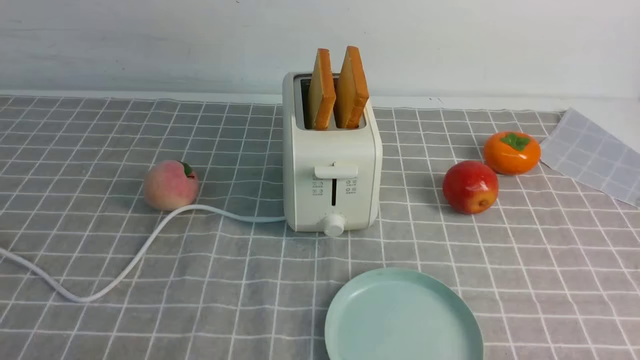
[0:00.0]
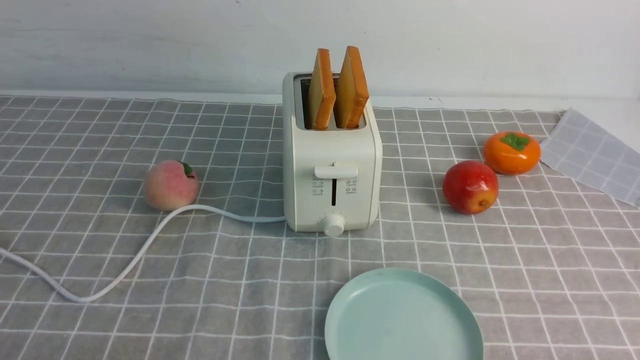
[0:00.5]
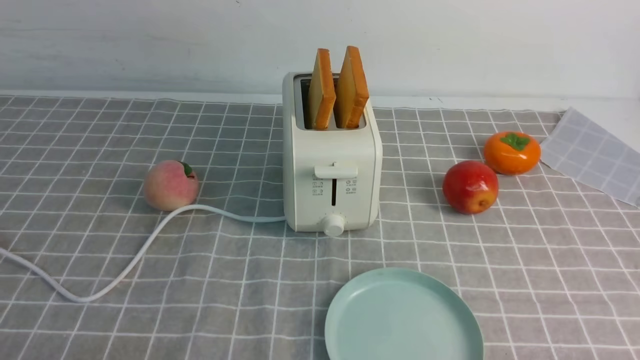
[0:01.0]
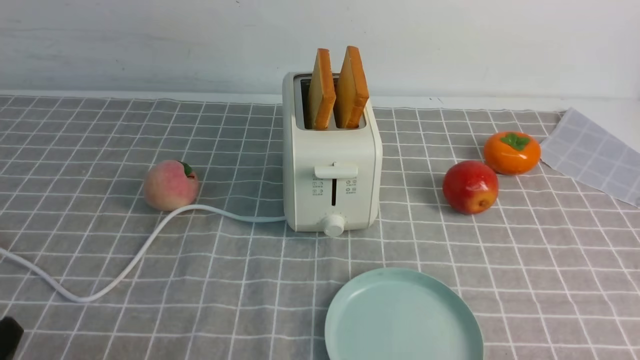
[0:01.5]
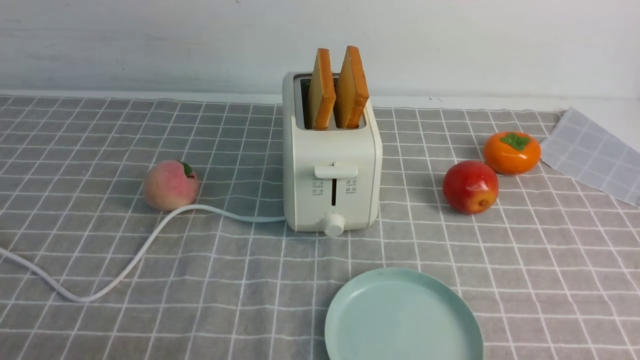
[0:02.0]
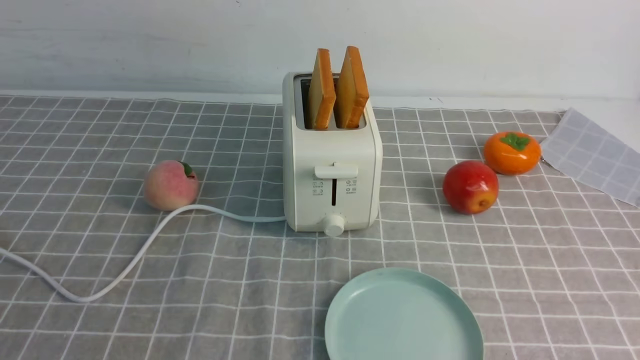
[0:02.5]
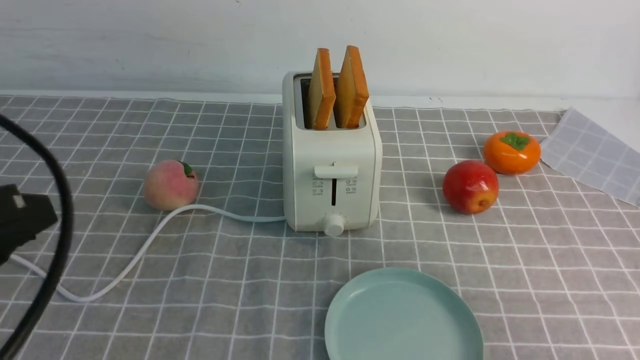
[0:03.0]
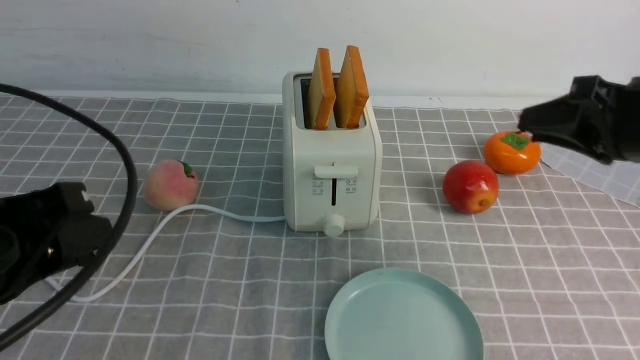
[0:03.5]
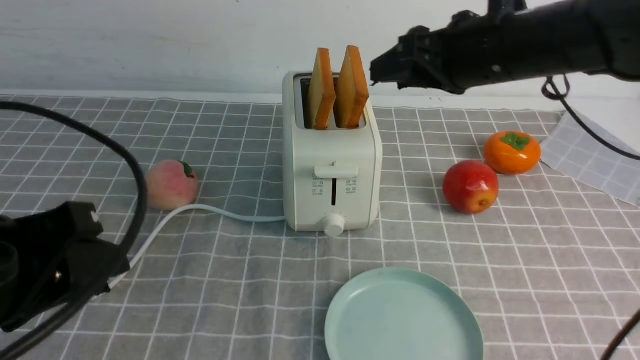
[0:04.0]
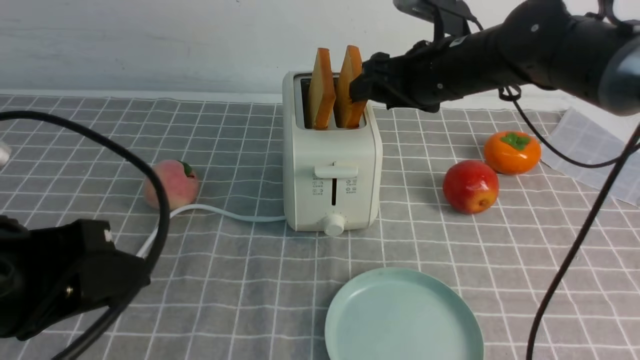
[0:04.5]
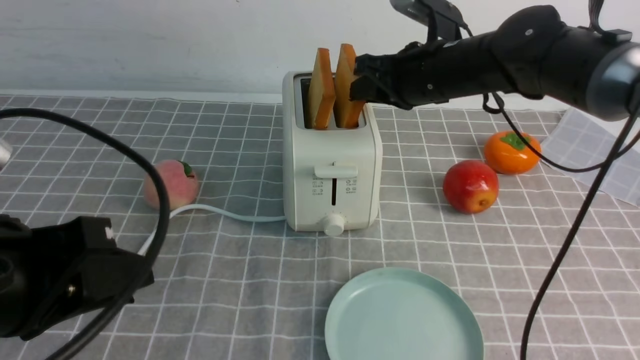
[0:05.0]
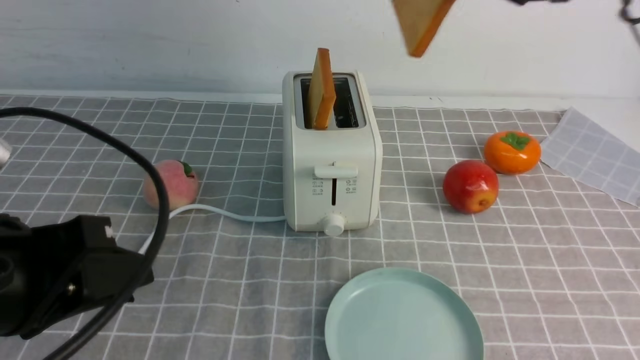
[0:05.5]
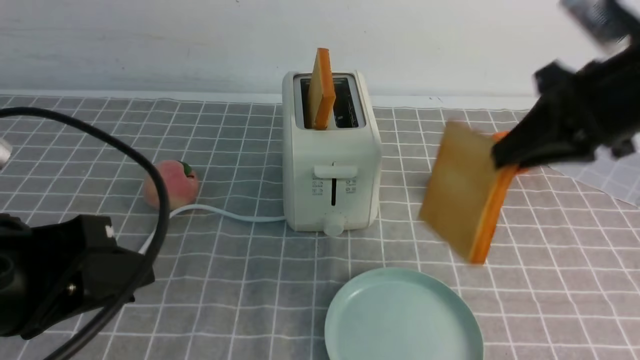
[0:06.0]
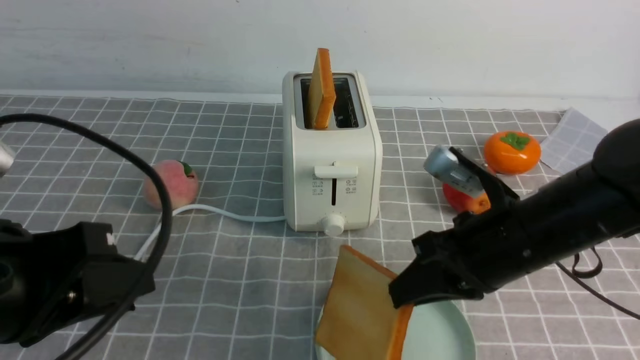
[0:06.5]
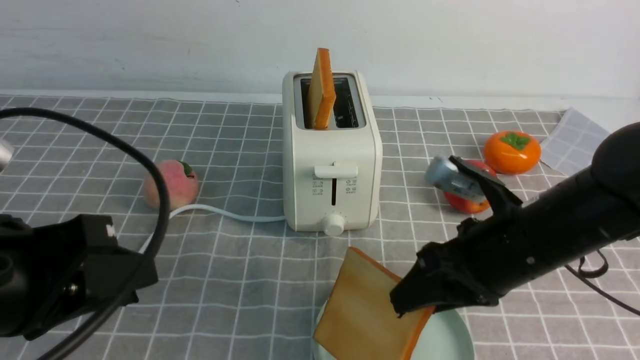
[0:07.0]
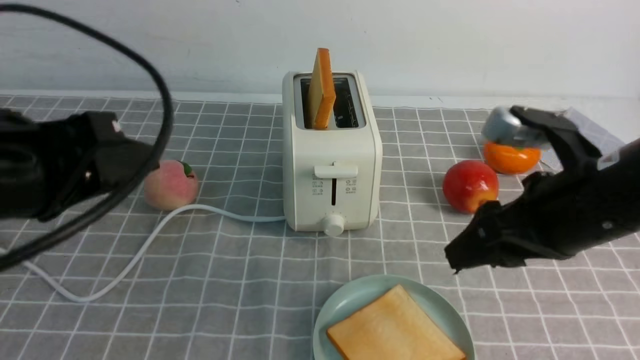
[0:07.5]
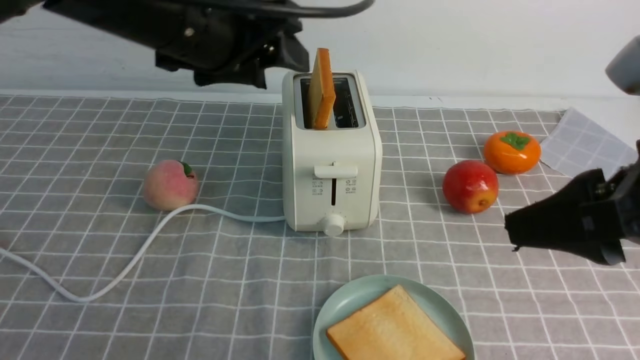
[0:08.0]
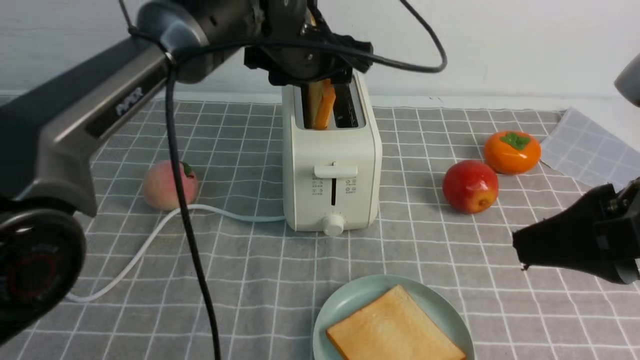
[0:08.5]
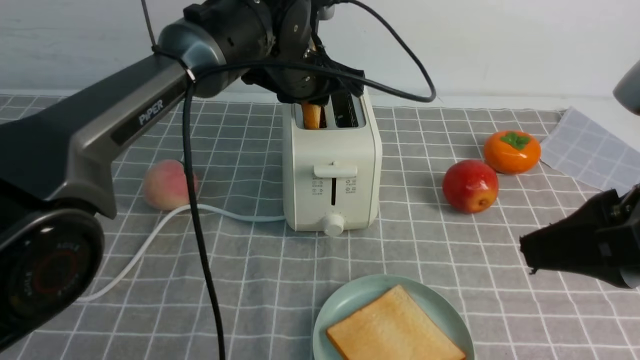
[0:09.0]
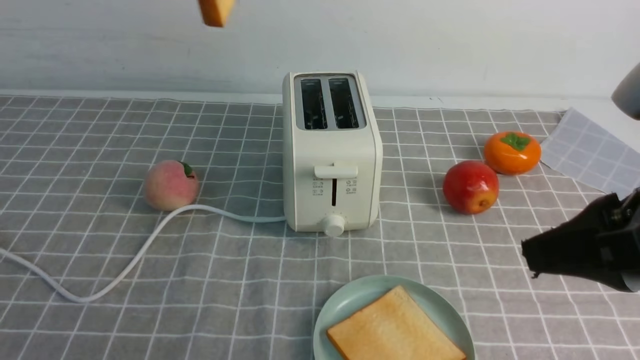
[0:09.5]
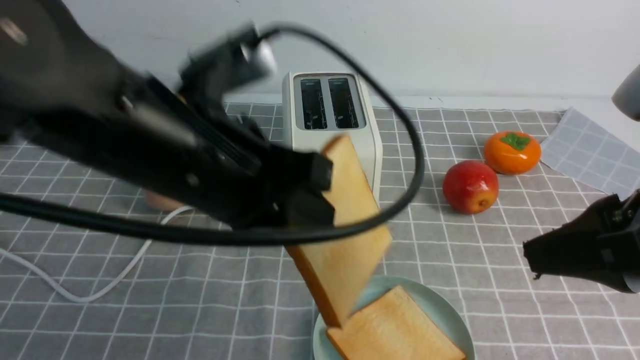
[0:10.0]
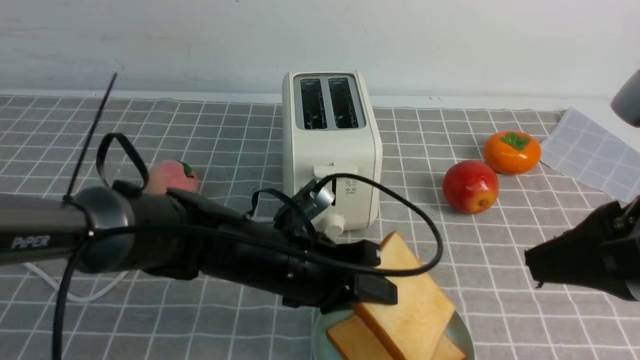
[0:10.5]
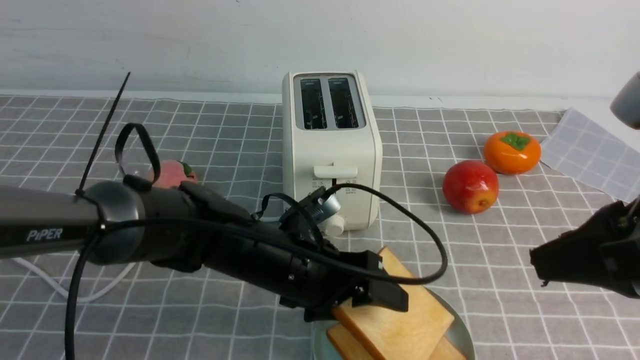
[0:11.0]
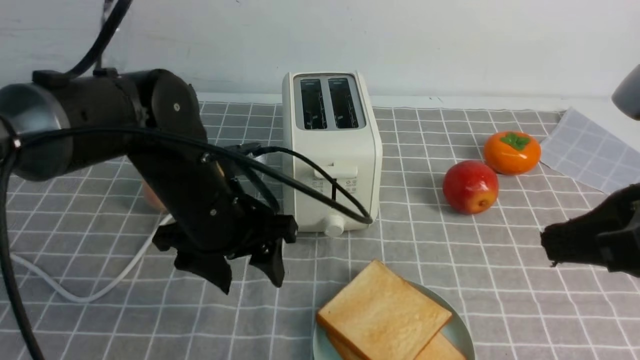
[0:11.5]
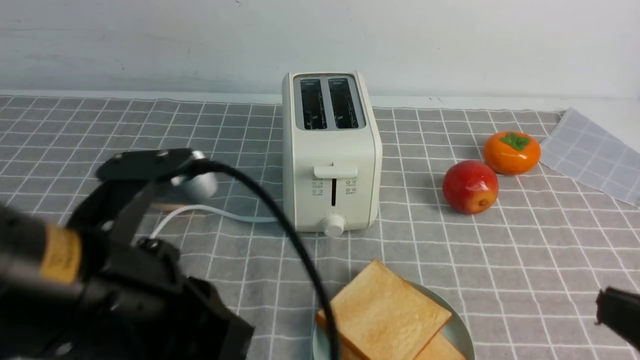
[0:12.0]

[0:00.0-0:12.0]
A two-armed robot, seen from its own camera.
Task of the whole recording: take toasted bread from bread machine on grey coffee table place on plate.
Step, 0:00.0 to 0:05.0: use the right arm to take out a slice of bread.
Step, 0:06.0 to 0:07.5: use the right arm to put a slice of bread into the plate.
Step, 0:08.0 to 0:09.0: use the left arm to take out a slice of bread.
Step, 0:09.5 to 0:11.0: use the left arm to put a slice of bread into the empty plate.
0:02.0 to 0:04.0: The left gripper heads forward and upward, covering about 15 cm; the right gripper travels forward and to the left by roughly 35 cm.
0:04.0 to 0:06.0: The right gripper is displaced backward and to the right by approximately 10 cm, and closes up.
0:06.0 to 0:08.0: The left gripper moves forward and to the right, approximately 20 cm, and opens; the right gripper travels backward by some 15 cm, and opens its fingers.
0:08.0 to 0:10.0: The left gripper travels backward and downward by approximately 10 cm, and closes up.
0:10.0 to 0:12.0: The left gripper goes about 10 cm backward and to the left, reaches some 15 cm downward, then returns, and opens, then closes again. The right gripper travels downward and backward by some 10 cm, and closes up.

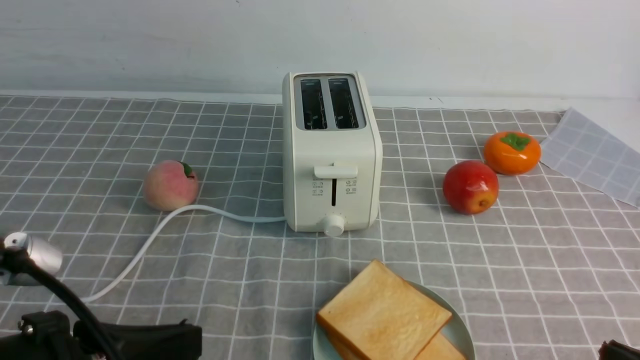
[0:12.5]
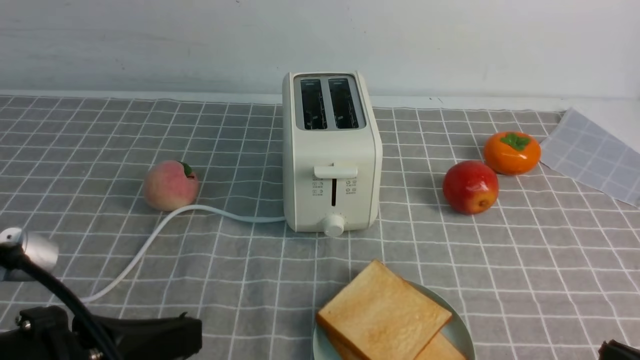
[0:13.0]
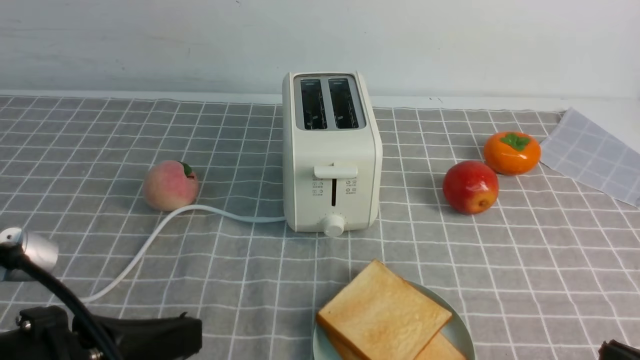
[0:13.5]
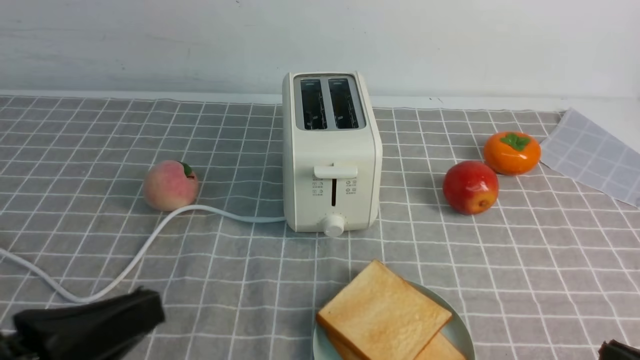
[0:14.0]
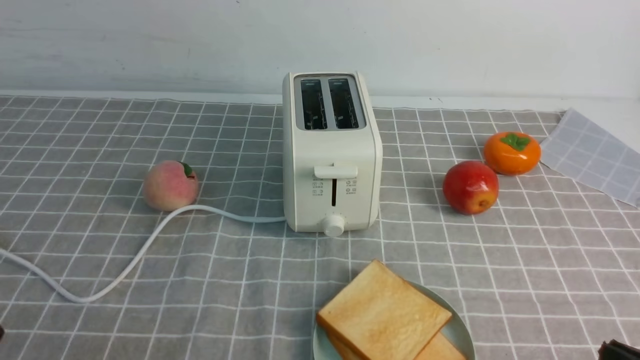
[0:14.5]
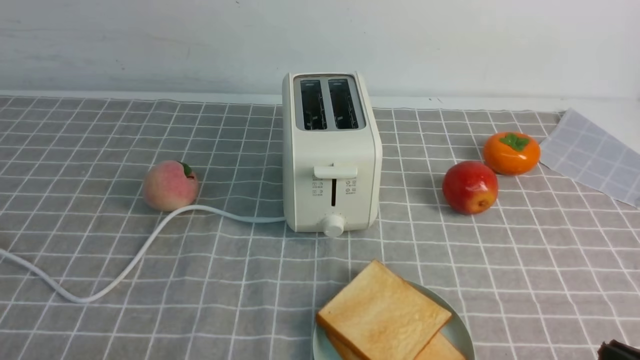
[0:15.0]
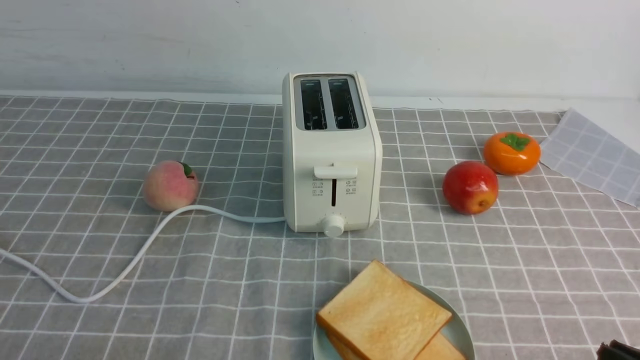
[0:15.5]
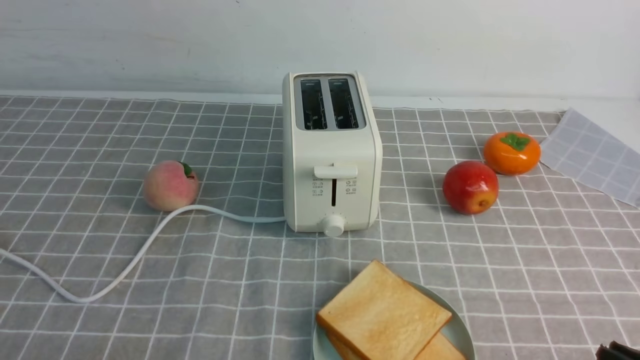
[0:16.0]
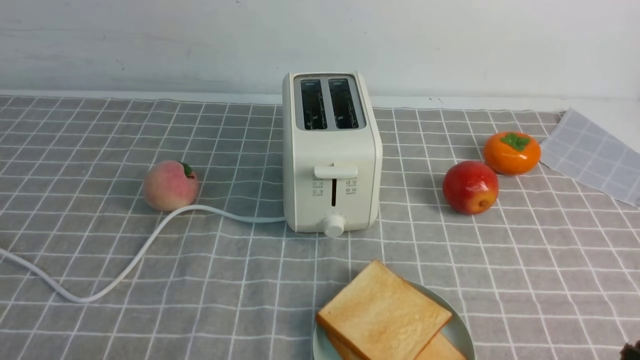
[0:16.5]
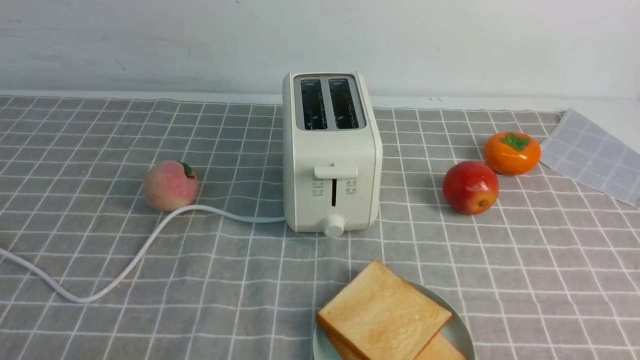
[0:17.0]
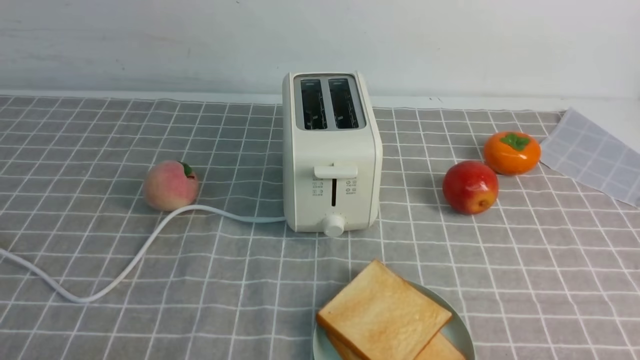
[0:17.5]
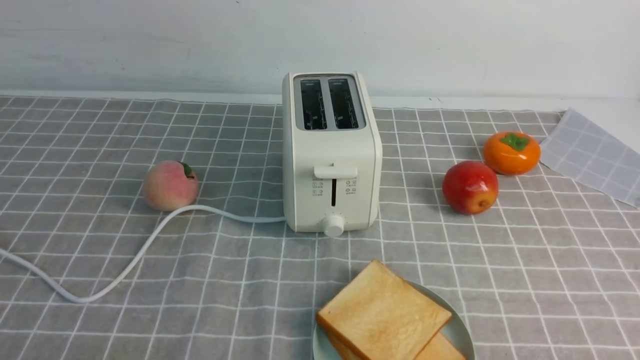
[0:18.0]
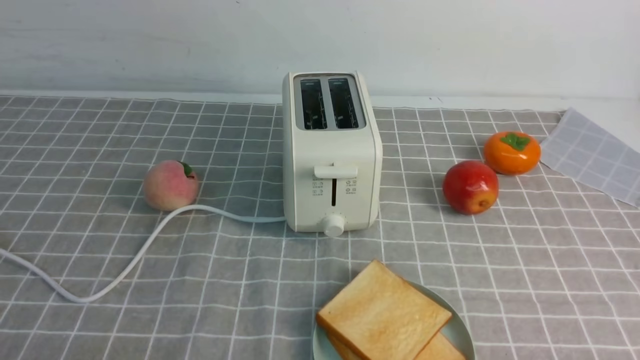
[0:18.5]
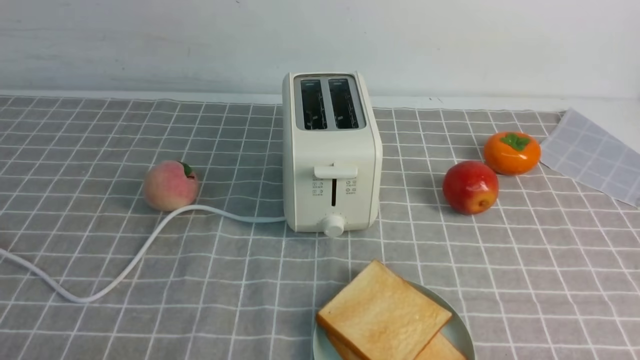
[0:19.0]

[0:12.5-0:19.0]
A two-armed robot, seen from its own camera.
Task of the whole recording: take toasted bread from bread machine on grey coffee table place on plate.
0:12.5 to 0:14.5: The left gripper heads to the left and downward, covering some 10 cm.

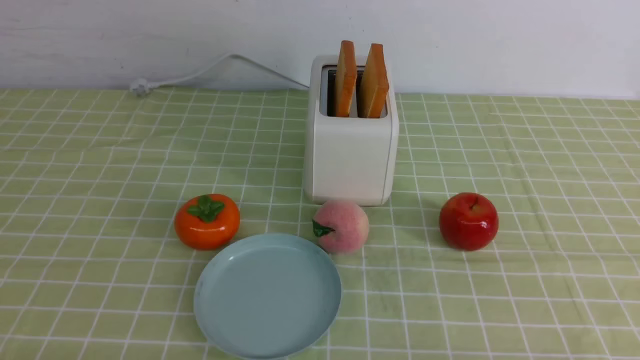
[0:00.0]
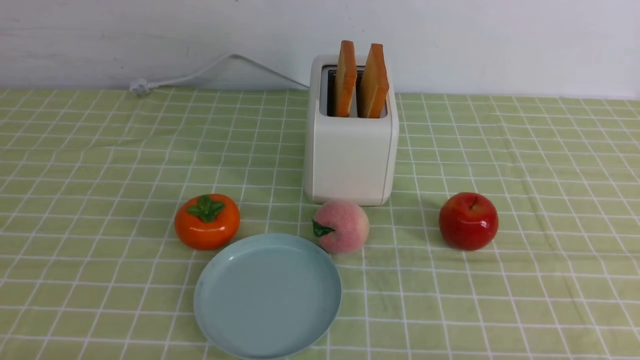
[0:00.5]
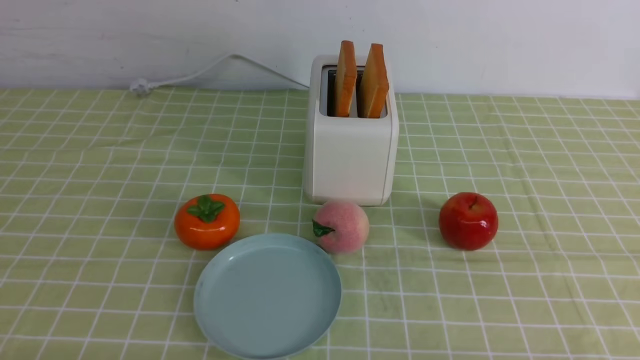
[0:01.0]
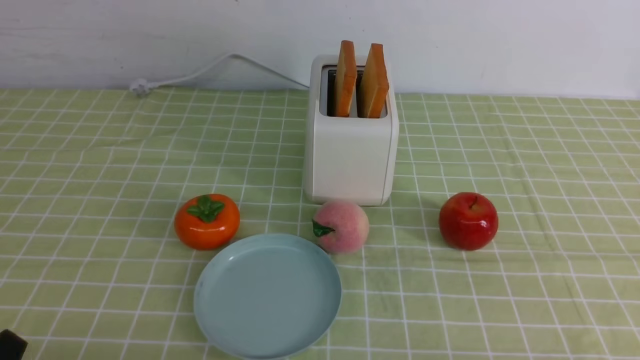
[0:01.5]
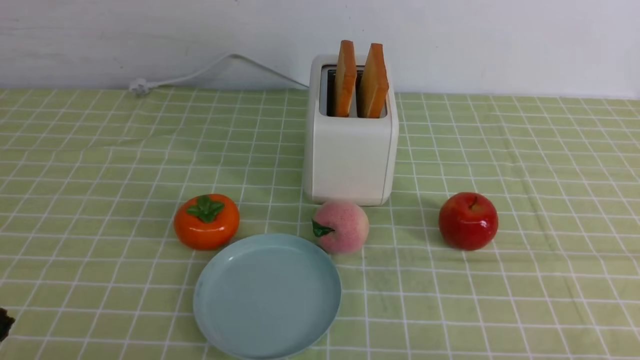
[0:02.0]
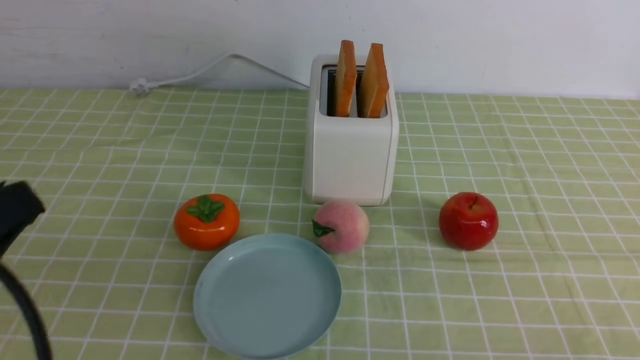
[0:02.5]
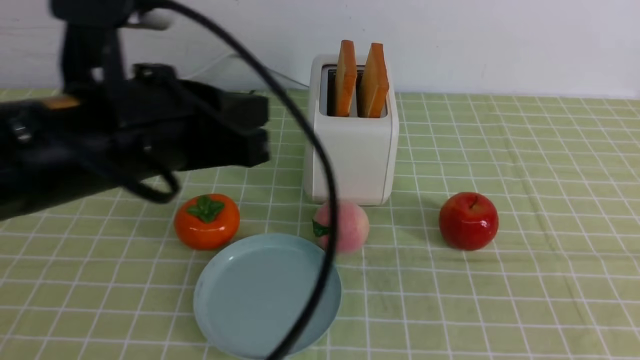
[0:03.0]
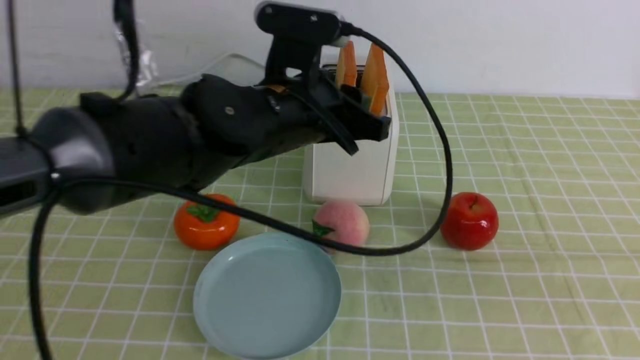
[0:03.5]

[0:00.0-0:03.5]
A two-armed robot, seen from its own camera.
Task of the whole recording: take toasted bread from bread machine on green coffee tablecloth place on plate.
0:02.0 to 0:03.5: The right gripper moves upward, approximately 20 cm, and closes its fingers. Meanwhile the left gripper goes approximately 35 cm forward and to the right, and opens its fingers.
